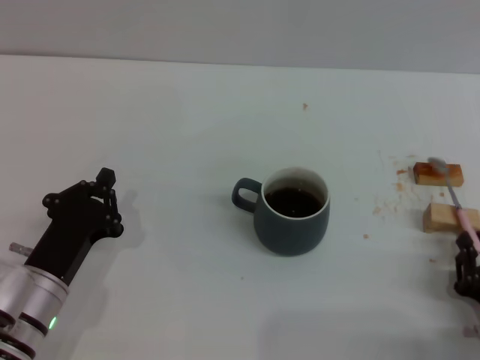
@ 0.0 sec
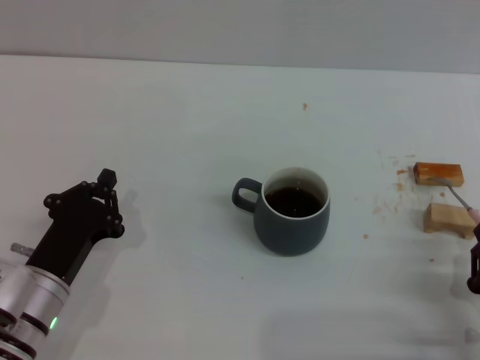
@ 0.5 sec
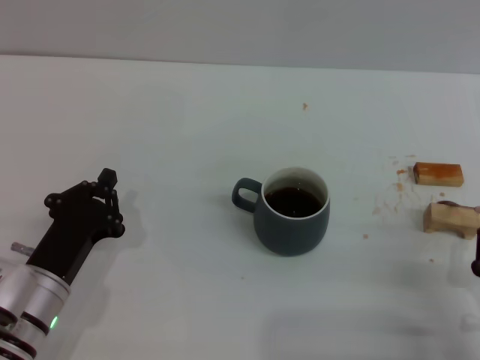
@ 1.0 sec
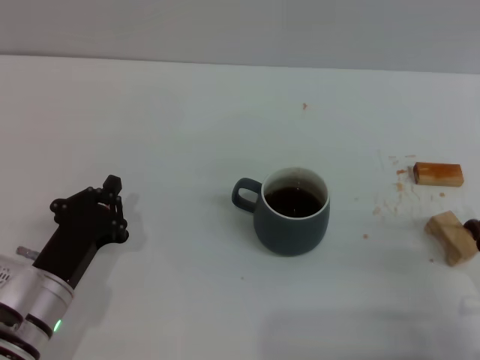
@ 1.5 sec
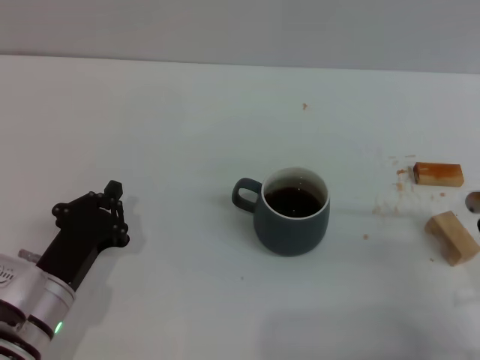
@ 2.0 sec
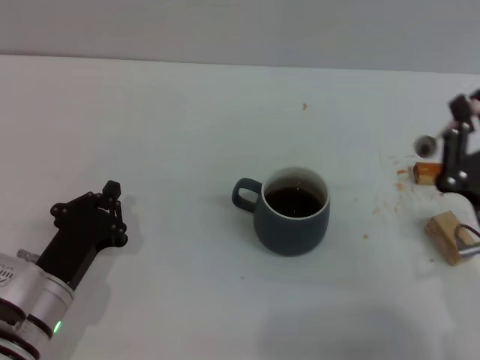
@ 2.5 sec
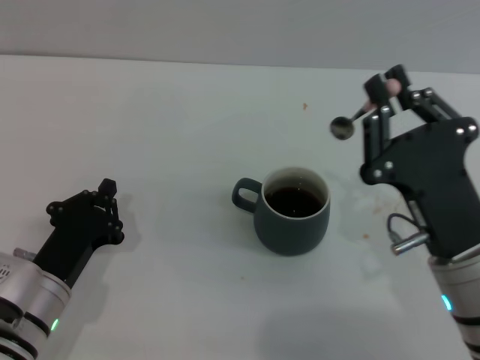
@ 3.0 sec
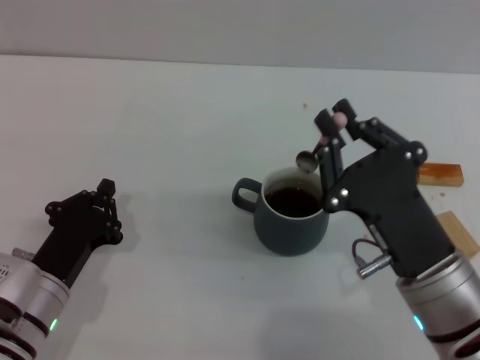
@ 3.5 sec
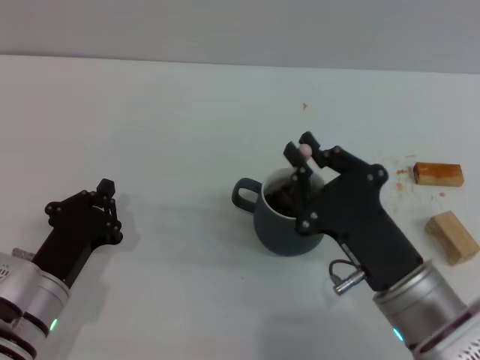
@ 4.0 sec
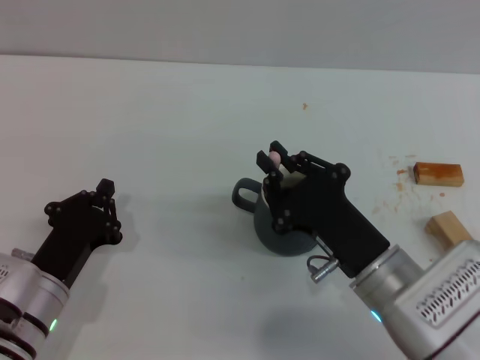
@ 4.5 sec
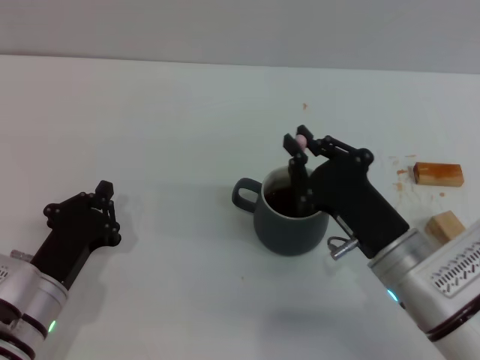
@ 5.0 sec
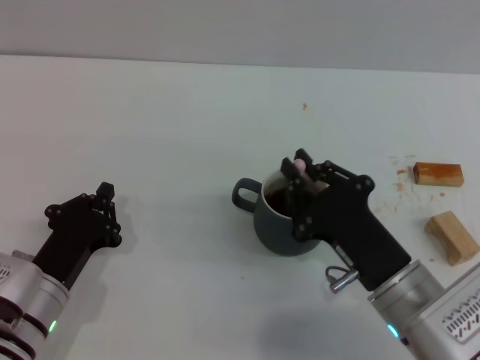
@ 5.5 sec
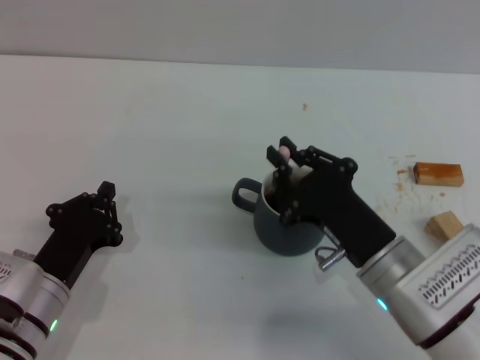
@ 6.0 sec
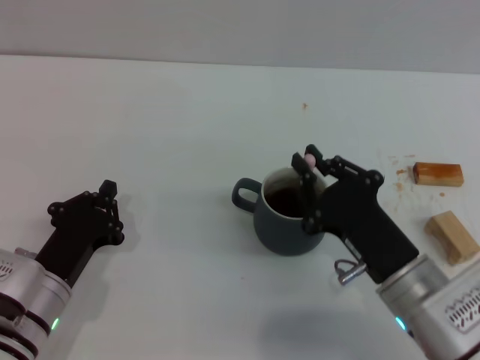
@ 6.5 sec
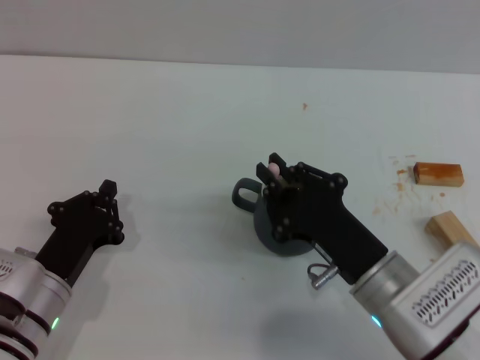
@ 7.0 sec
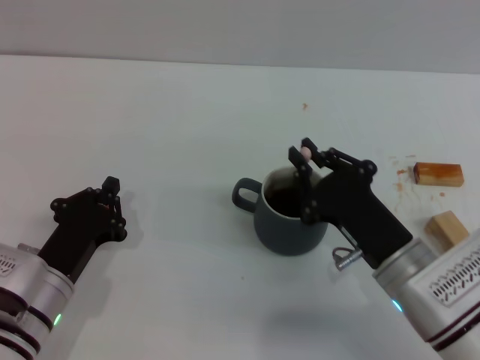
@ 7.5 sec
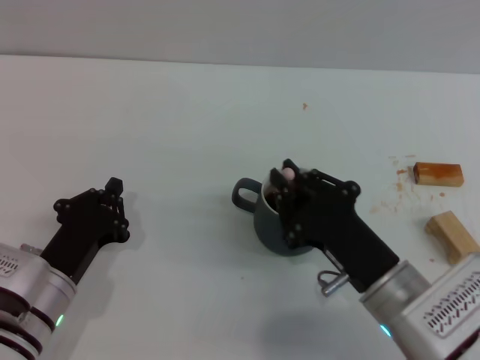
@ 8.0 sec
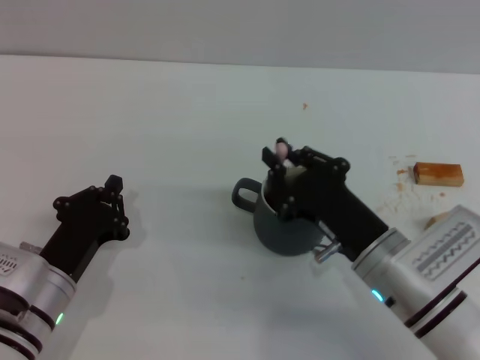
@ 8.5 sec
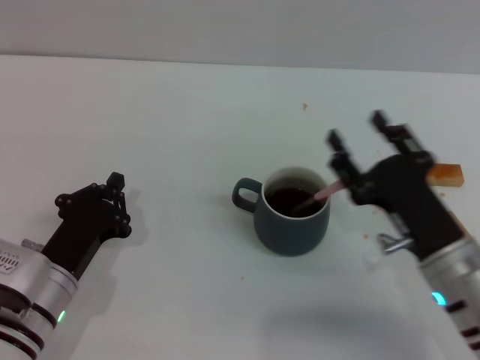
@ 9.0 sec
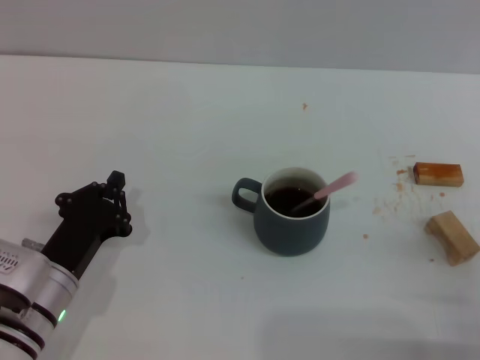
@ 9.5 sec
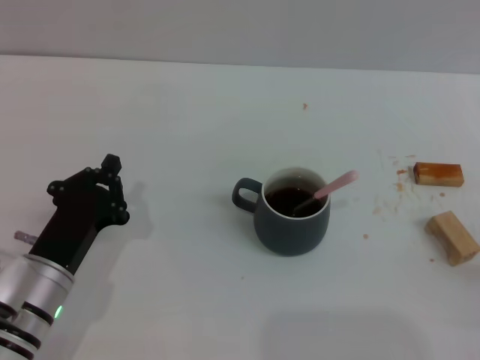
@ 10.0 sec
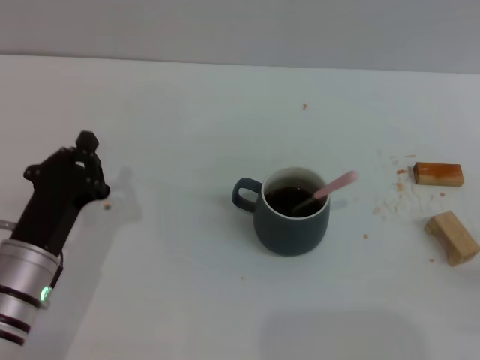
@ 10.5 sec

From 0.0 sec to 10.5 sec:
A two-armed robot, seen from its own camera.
Task of the whole recording: Move the grey cup to the center, lift the pink spoon, stir it three times in the cup, and put the spoon into the cup.
Step, from 2.0 sec to 8.5 sec: Stir the coffee in the cup with the right gripper.
From 0.0 sec to 2.0 sec: The right gripper is displaced upward by about 5 cm.
From 2.0 sec to 4.0 sec: The right gripper travels to the left by about 10 cm.
From 4.0 sec to 8.5 sec: The grippers make only small movements.
From 8.5 sec to 10.5 sec: The right gripper moves to the right and backward, about 20 cm, and opens up.

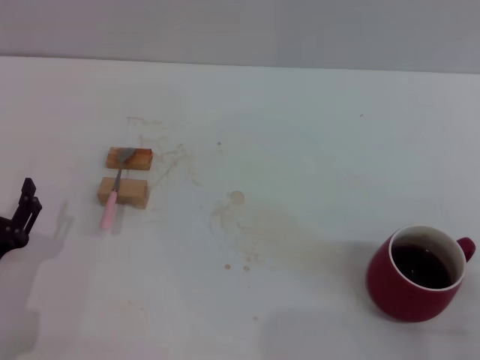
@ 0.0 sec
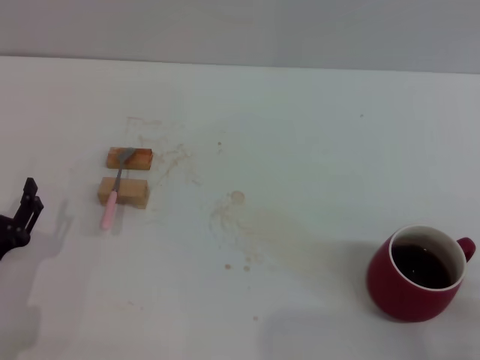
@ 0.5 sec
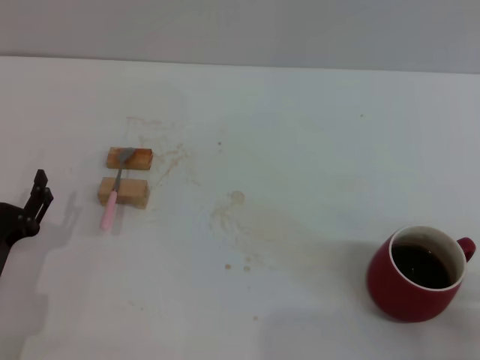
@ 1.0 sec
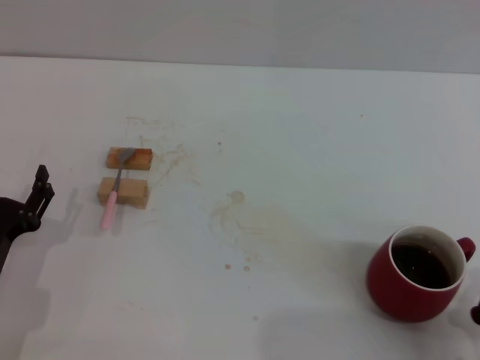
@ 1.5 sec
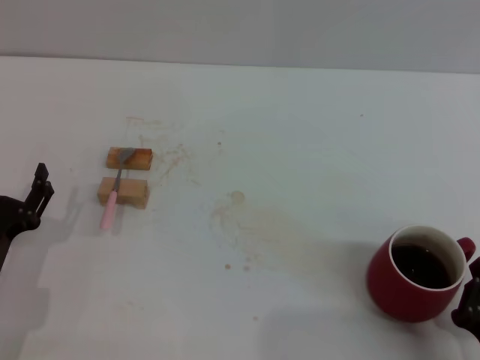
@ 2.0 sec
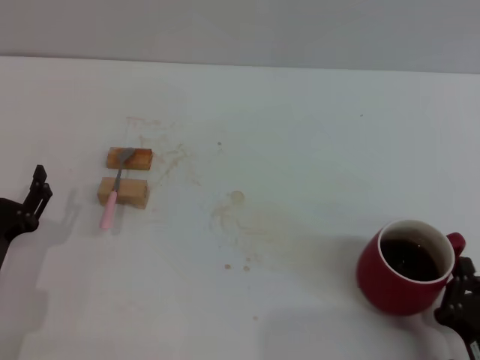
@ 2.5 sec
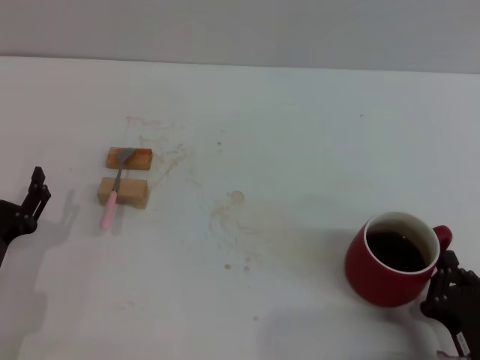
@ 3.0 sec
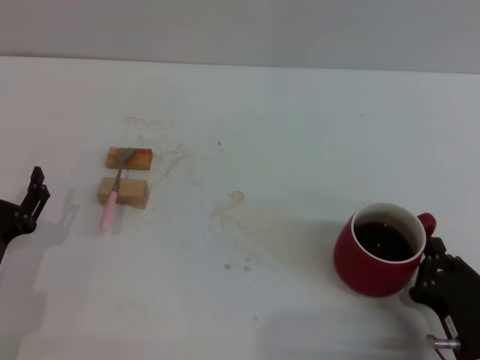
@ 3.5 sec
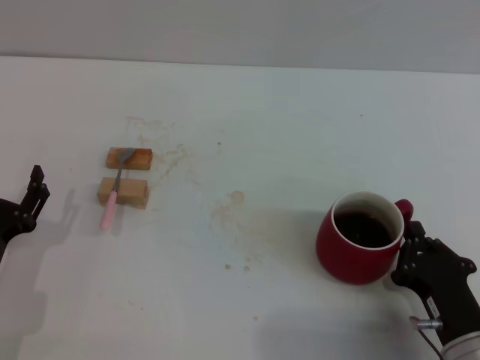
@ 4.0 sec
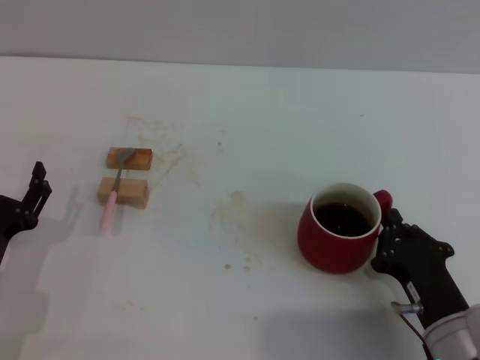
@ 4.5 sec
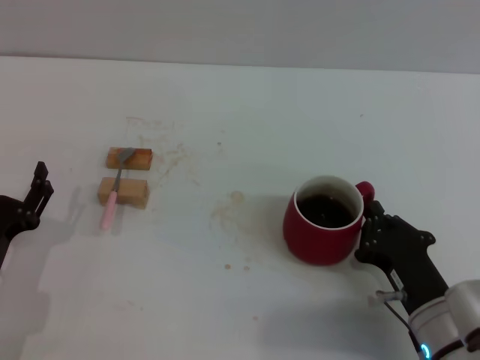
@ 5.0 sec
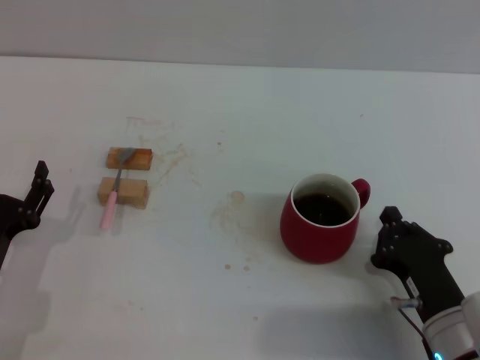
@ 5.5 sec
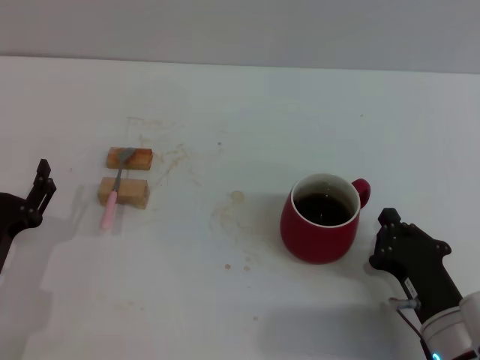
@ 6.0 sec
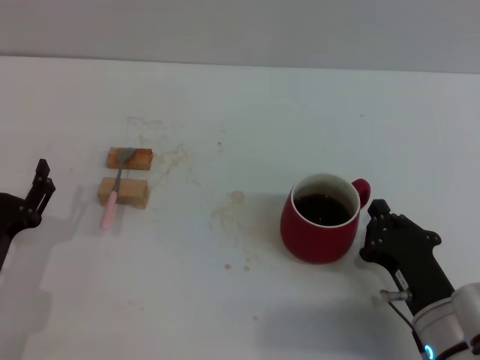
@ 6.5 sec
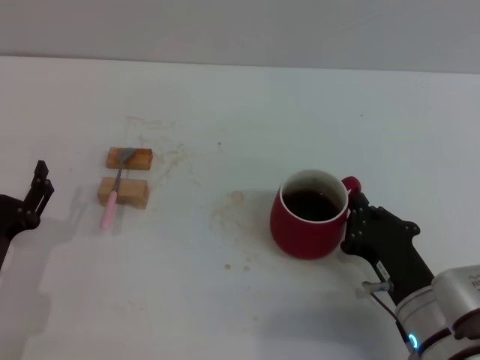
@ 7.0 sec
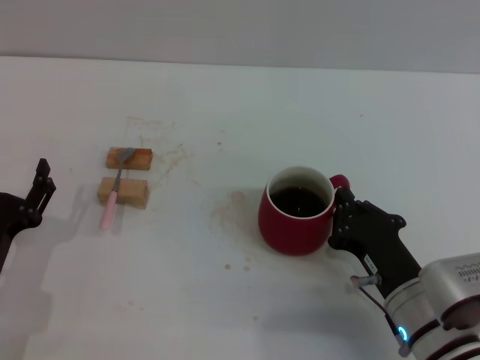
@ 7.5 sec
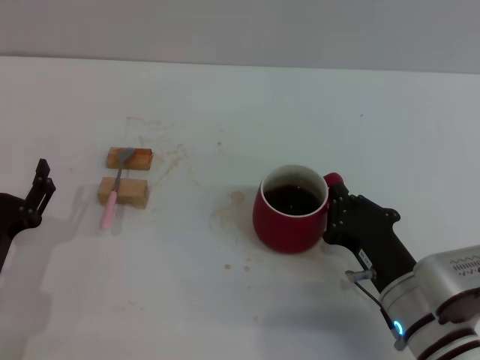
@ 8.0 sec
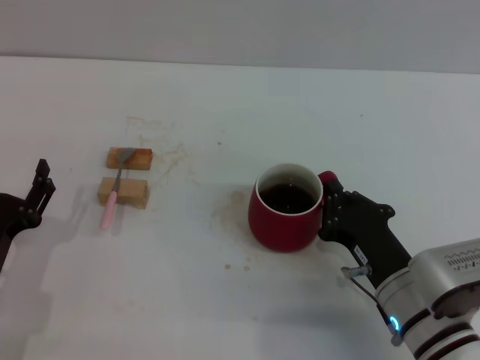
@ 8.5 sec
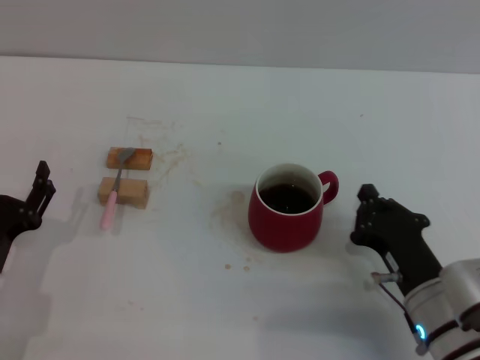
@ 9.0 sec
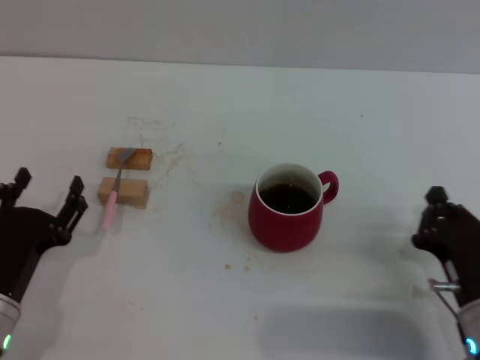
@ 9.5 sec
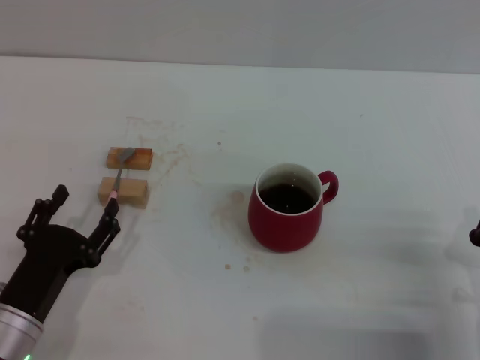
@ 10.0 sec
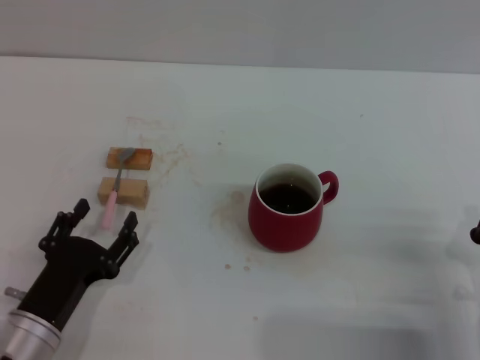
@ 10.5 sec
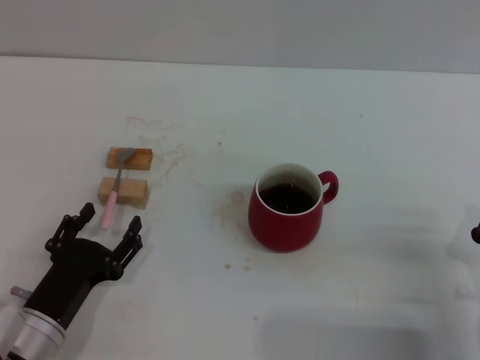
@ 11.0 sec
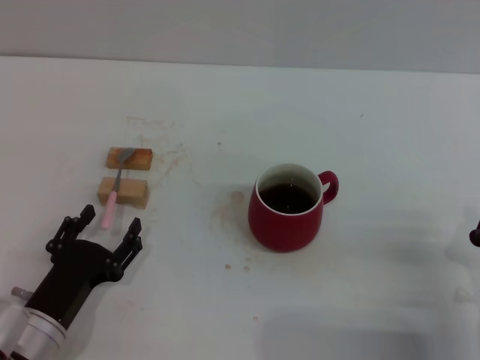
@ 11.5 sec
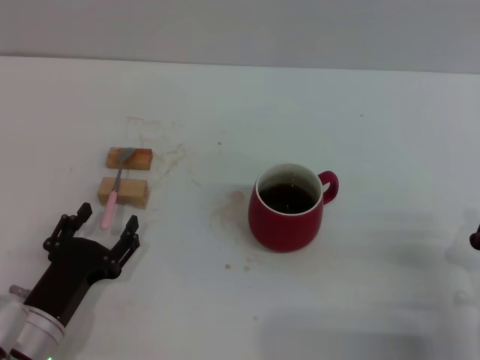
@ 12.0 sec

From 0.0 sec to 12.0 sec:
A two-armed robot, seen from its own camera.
Task of the whole recording: Move the red cup to the center, lift the pink spoon, stir it three times in the cup, and put the spoon into the cup.
Step, from 0.5 sec to 8.5 sec: Move the cup in the center of the table with right gripper.
From 0.0 sec to 2.0 sec: The right gripper travels to the left by approximately 5 cm.
From 2.0 sec to 4.0 sec: The right gripper heads forward, covering about 5 cm.
From 4.0 sec to 6.0 sec: The grippers stay close to where they were, moving slightly.
From 6.0 sec to 8.0 sec: There are only small adjustments of the grippers.
From 8.0 sec to 10.0 sec: The right gripper is displaced to the right by about 10 cm.
From 10.0 sec to 12.0 sec: The grippers move only a little.

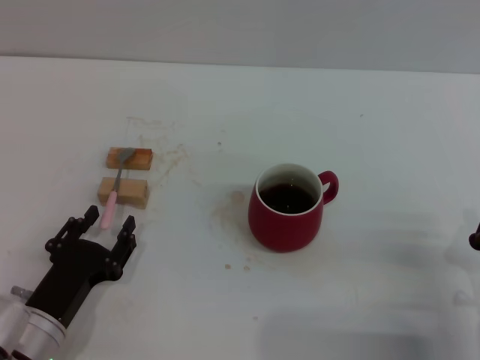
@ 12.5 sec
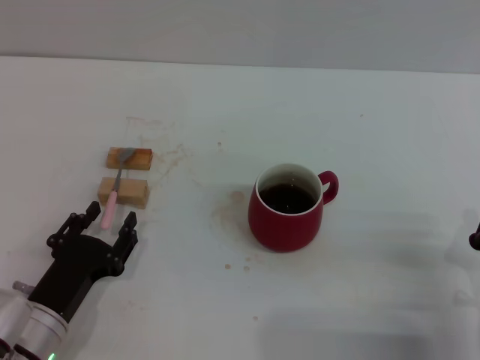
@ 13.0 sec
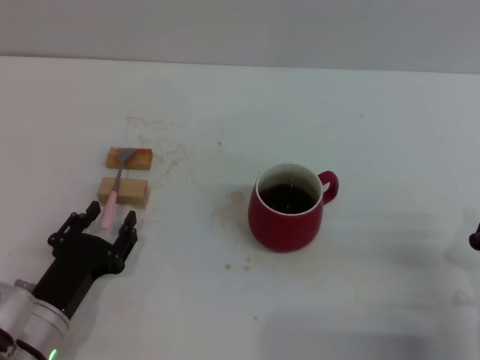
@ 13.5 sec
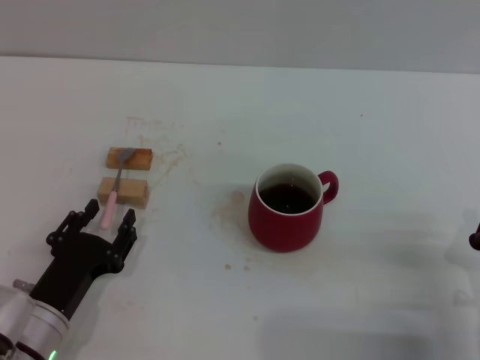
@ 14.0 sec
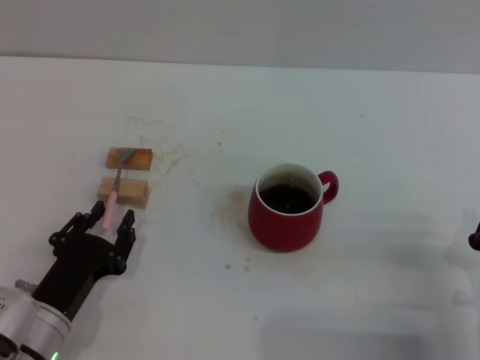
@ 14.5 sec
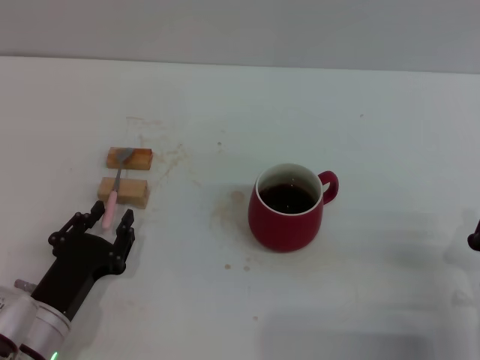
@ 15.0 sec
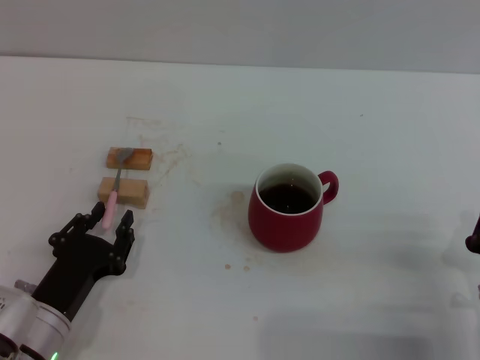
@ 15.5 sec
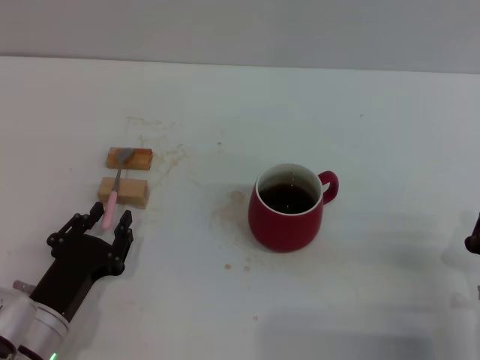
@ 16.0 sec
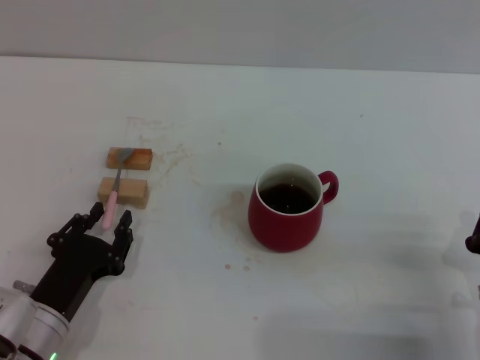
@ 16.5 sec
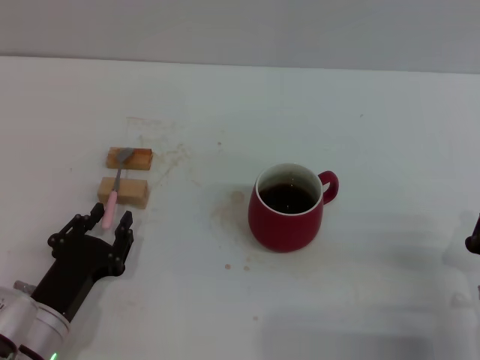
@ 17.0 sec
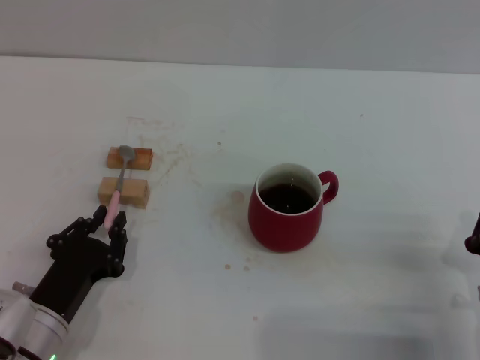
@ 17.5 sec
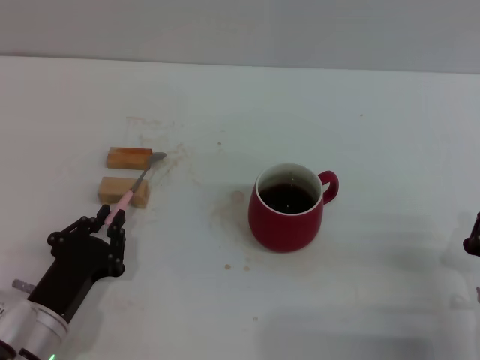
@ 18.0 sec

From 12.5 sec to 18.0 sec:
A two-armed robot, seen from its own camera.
Task of the whole recording: Move the red cup to the center, lift the pink spoon, stir it three times in the cup, and put the spoon into the cup.
From 12.5 sec to 18.0 sec: Both grippers stay put.
